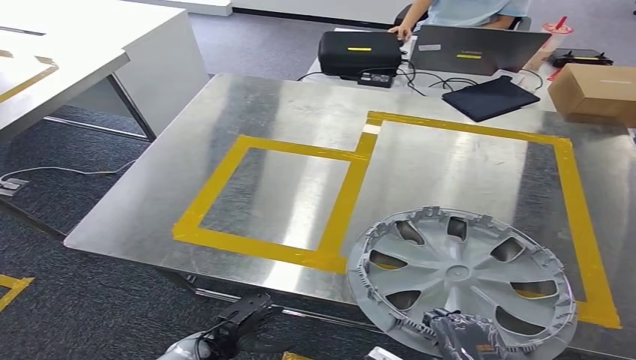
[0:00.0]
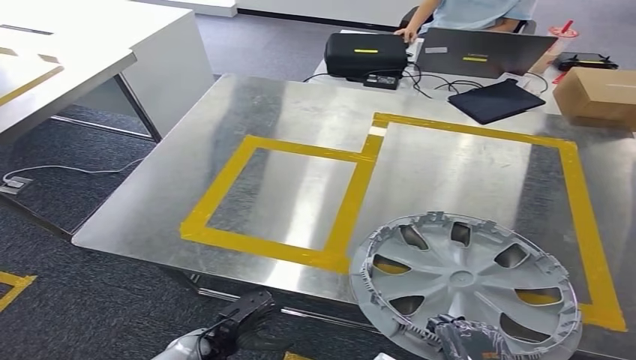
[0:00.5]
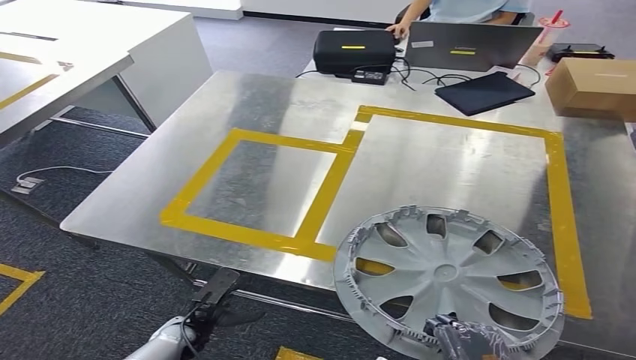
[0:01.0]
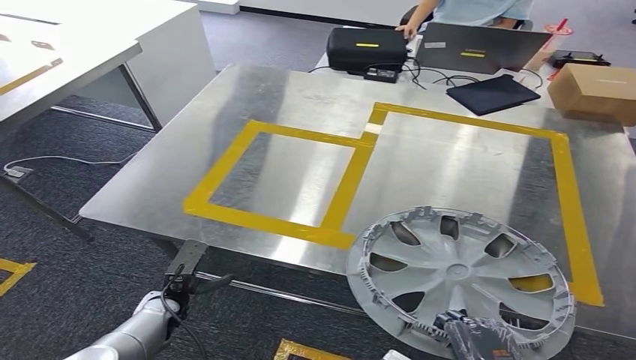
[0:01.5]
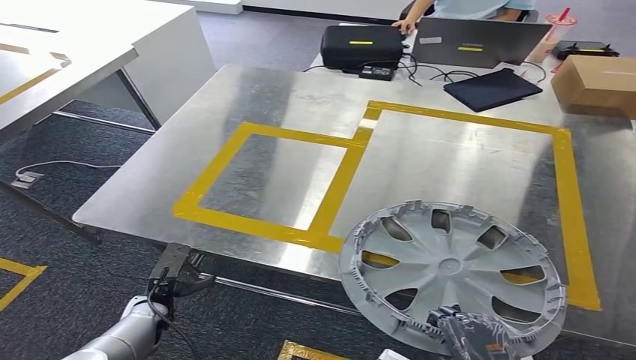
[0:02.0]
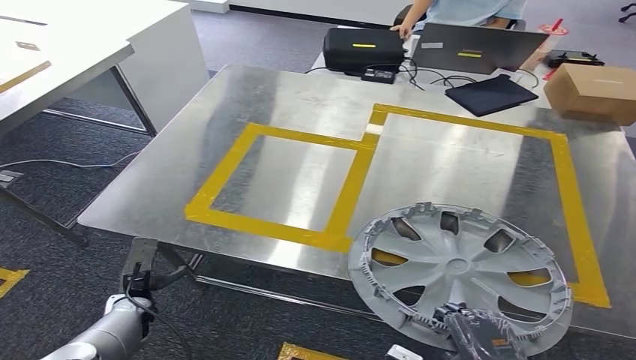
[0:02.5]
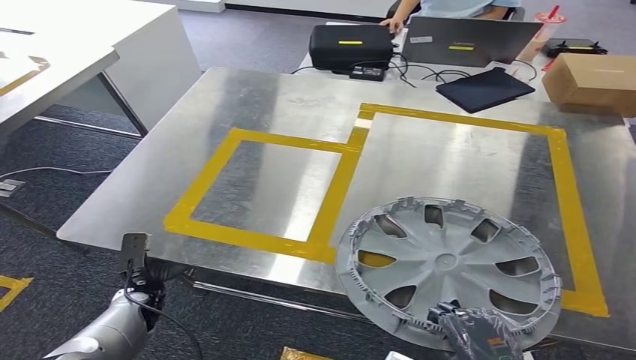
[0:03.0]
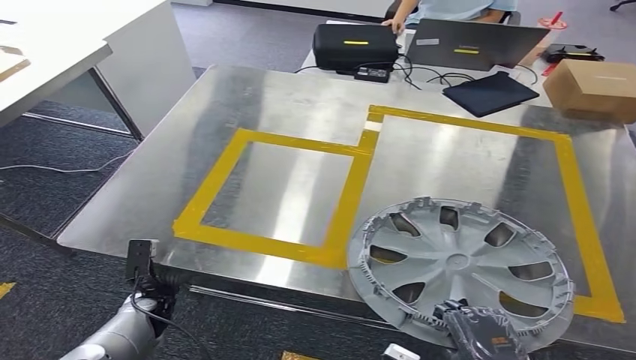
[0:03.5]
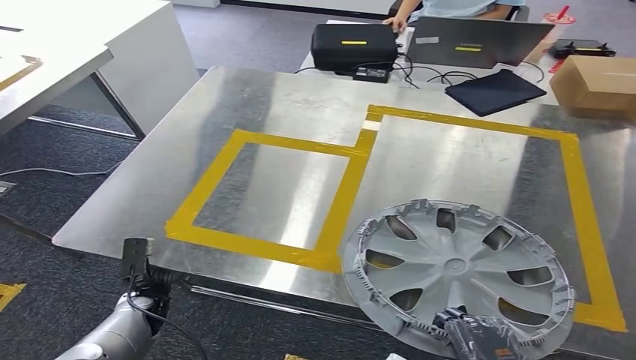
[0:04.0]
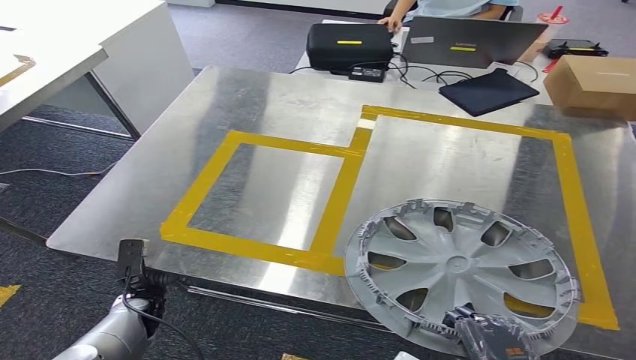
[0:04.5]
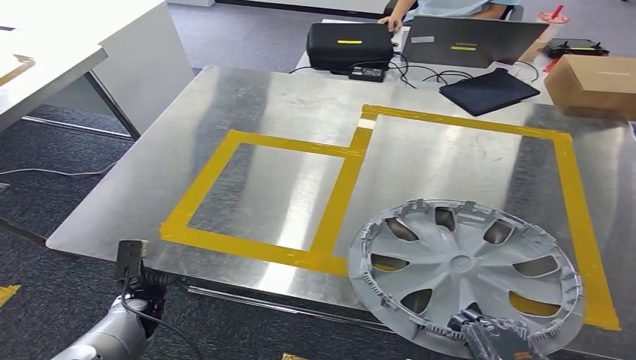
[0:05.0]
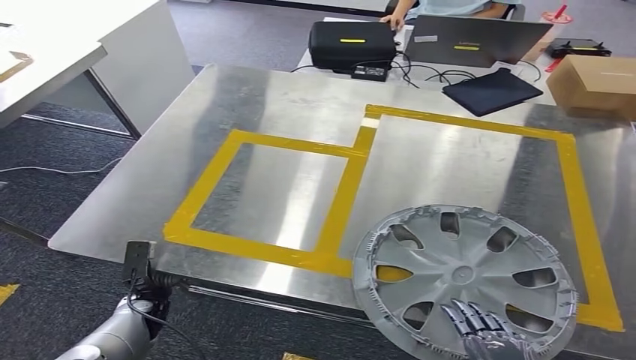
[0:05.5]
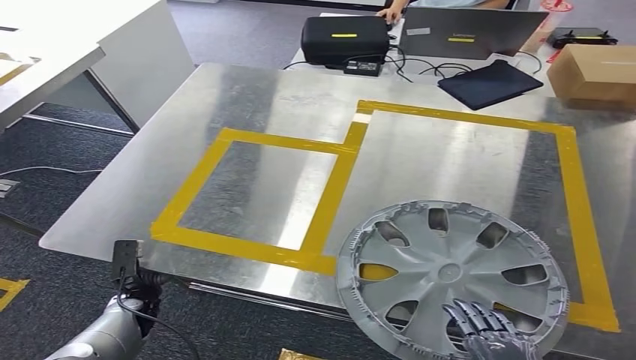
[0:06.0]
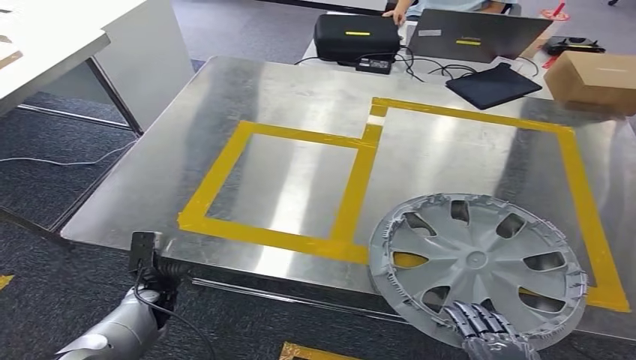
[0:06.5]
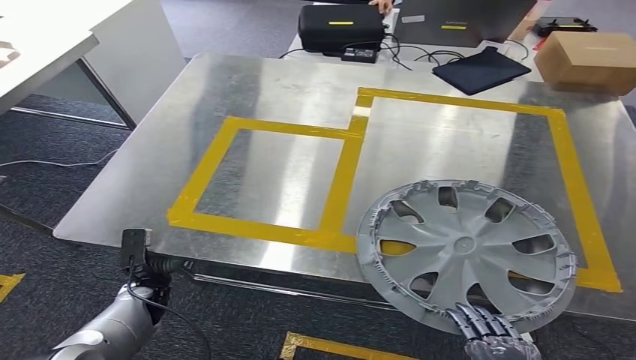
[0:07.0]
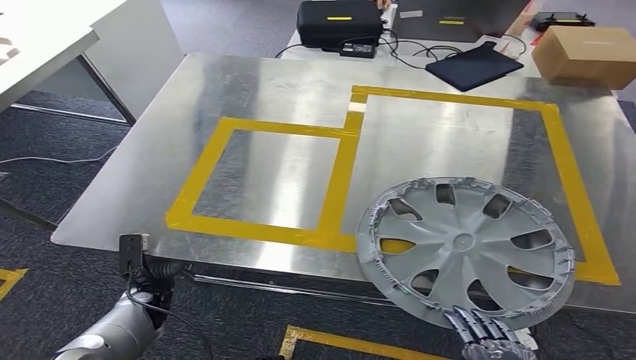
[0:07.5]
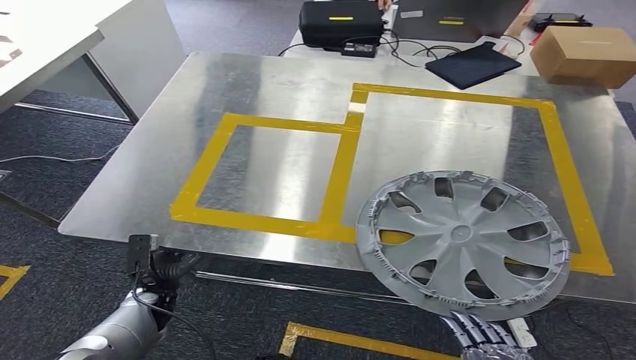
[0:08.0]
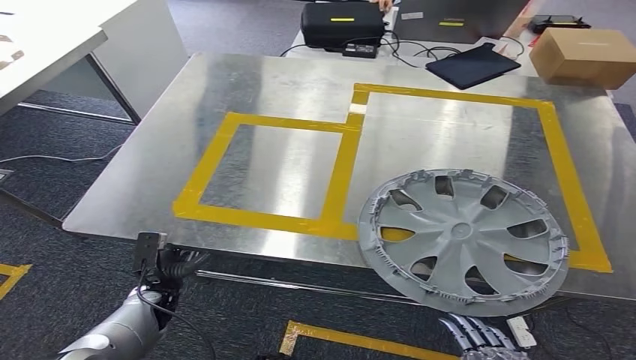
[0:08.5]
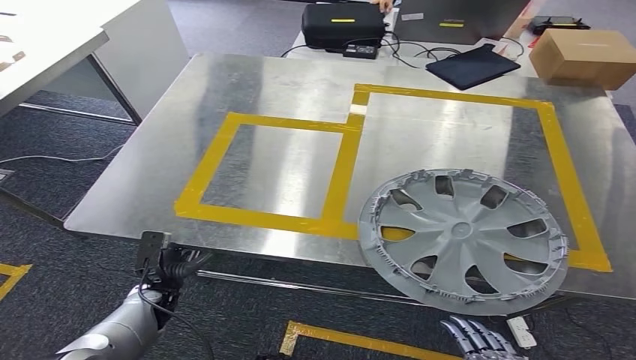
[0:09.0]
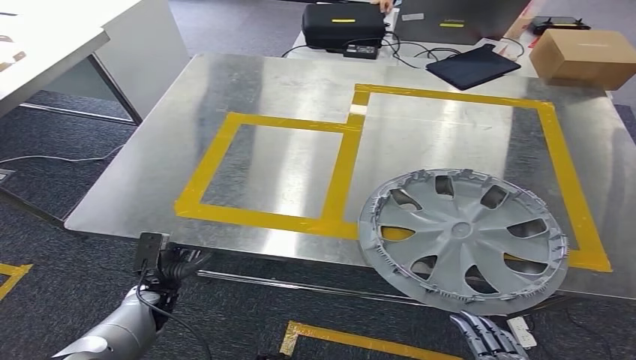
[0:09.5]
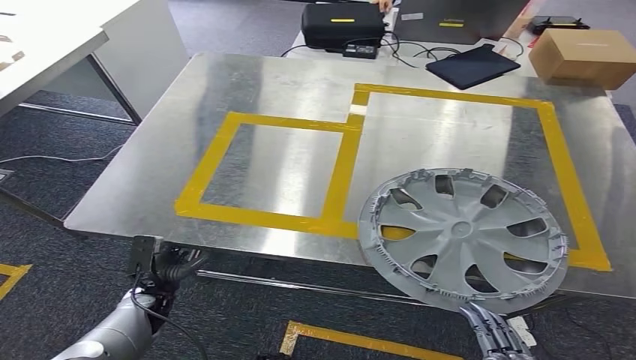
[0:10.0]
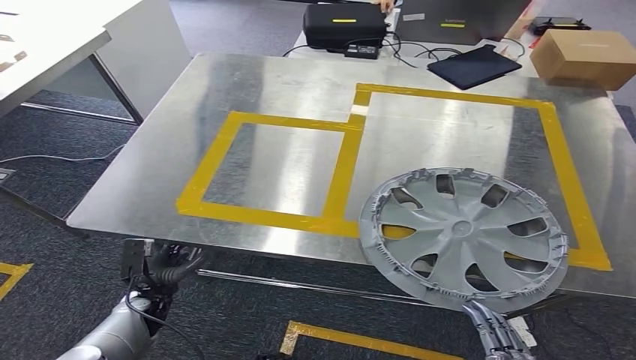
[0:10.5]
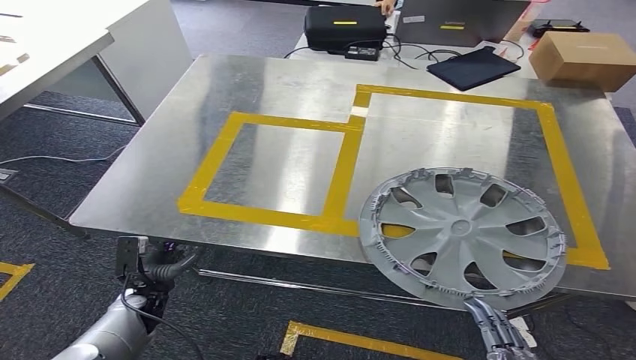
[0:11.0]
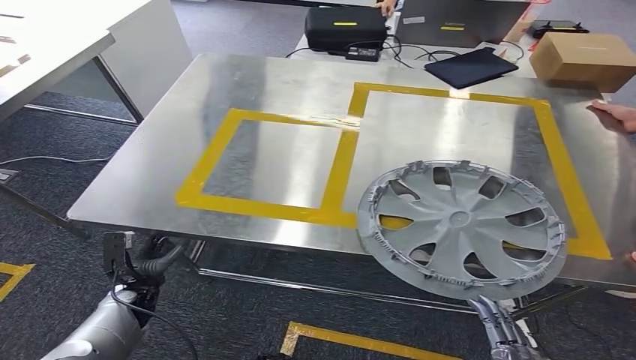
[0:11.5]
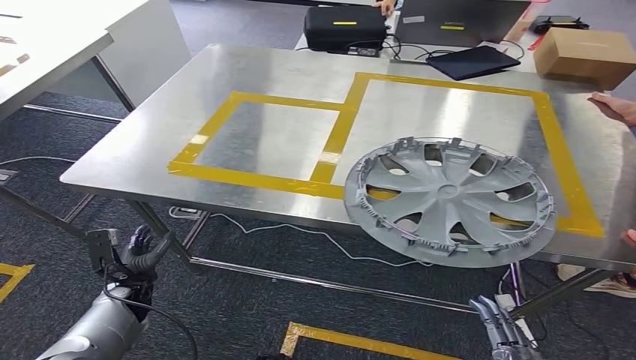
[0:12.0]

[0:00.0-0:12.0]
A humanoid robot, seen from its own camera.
Step, 0:00.0 to 0:06.5: Insert the small component into the corresponding slot on the workbench.

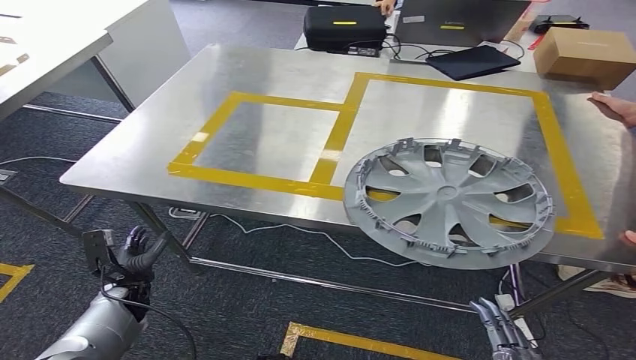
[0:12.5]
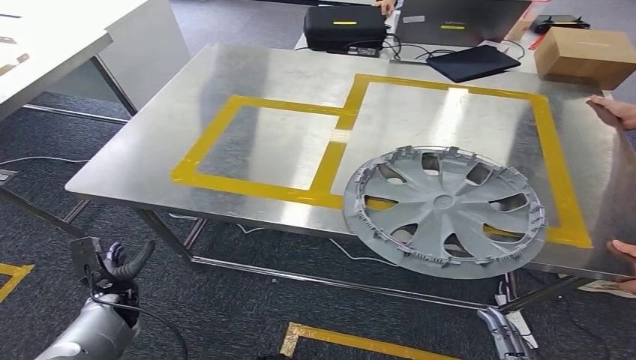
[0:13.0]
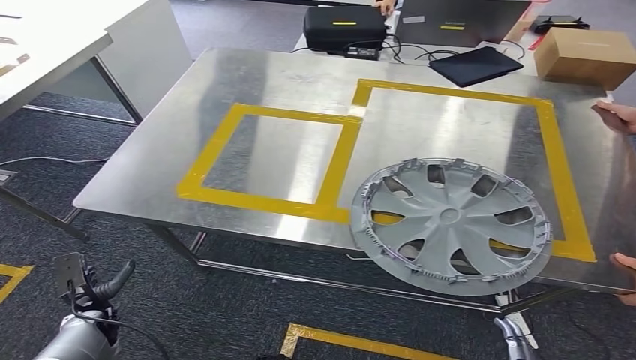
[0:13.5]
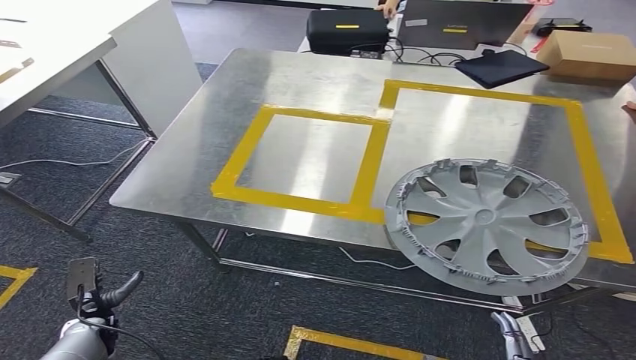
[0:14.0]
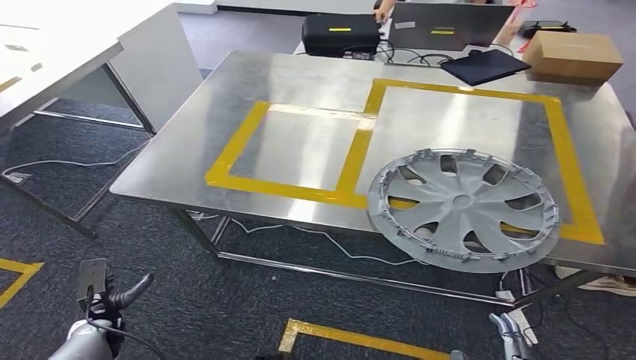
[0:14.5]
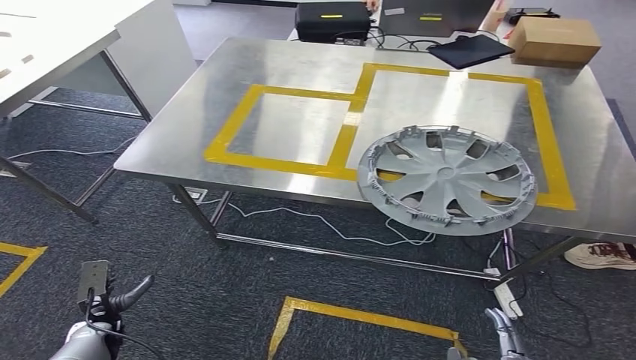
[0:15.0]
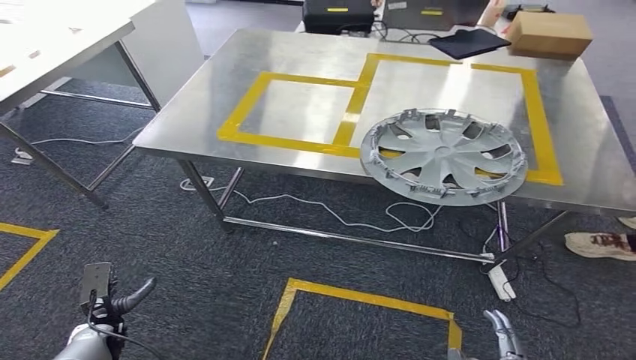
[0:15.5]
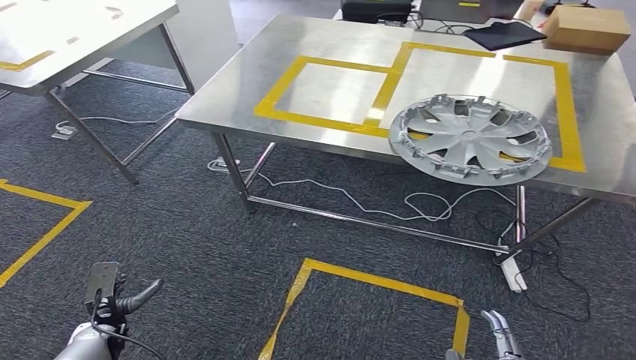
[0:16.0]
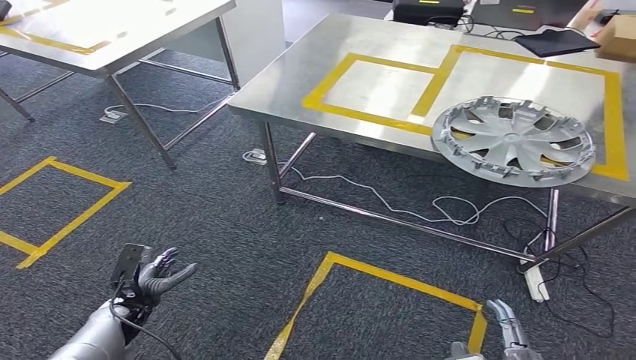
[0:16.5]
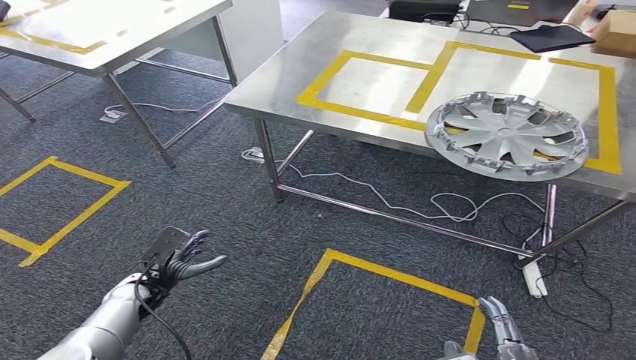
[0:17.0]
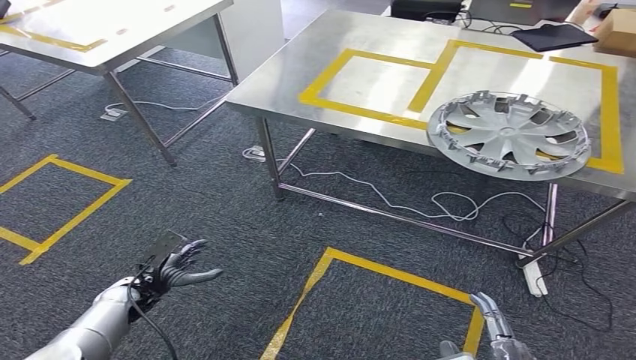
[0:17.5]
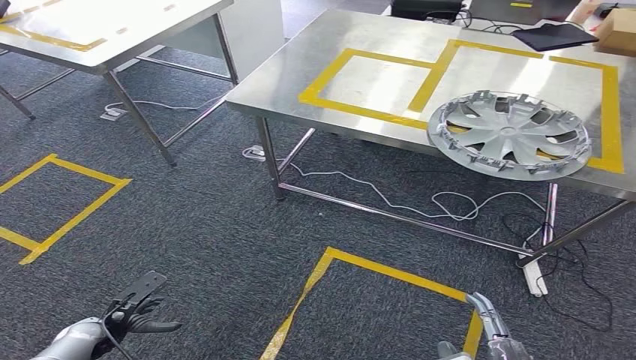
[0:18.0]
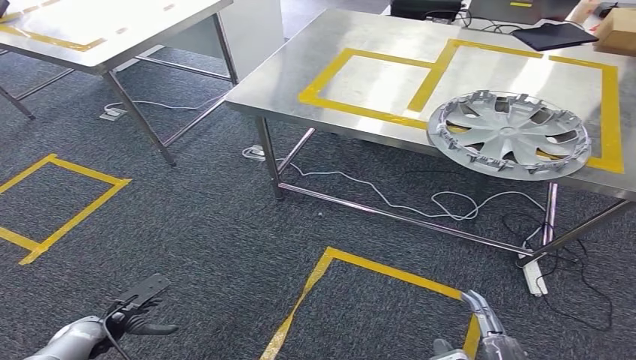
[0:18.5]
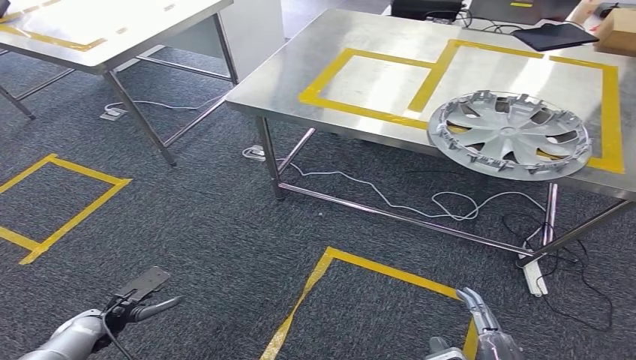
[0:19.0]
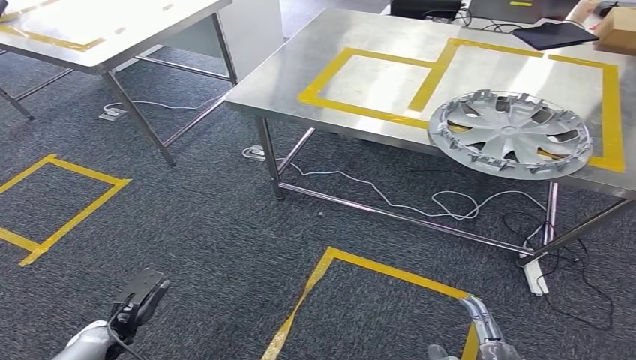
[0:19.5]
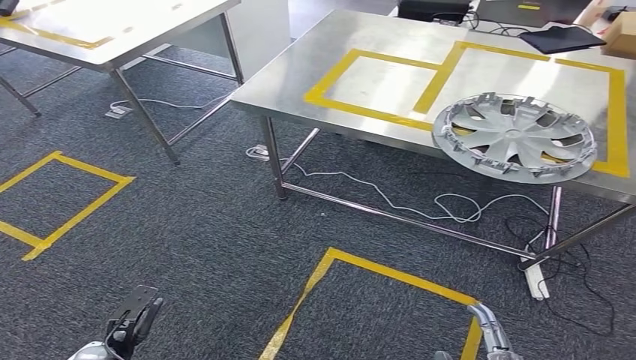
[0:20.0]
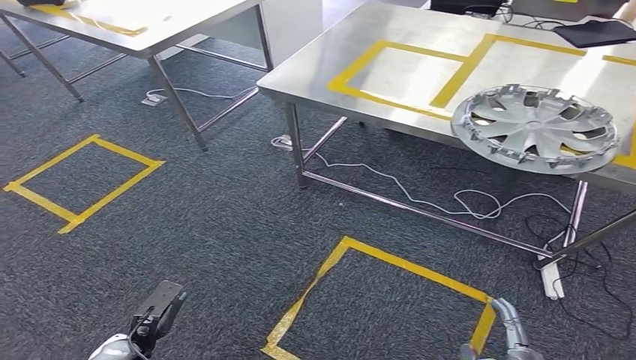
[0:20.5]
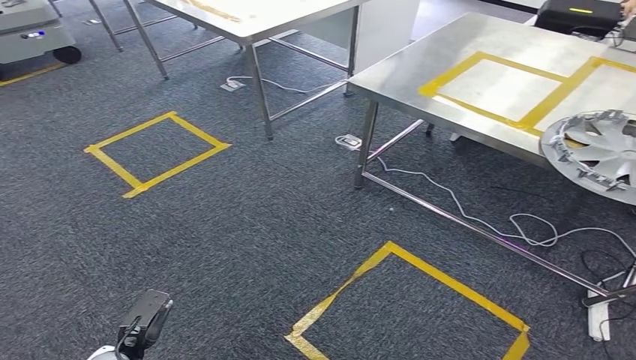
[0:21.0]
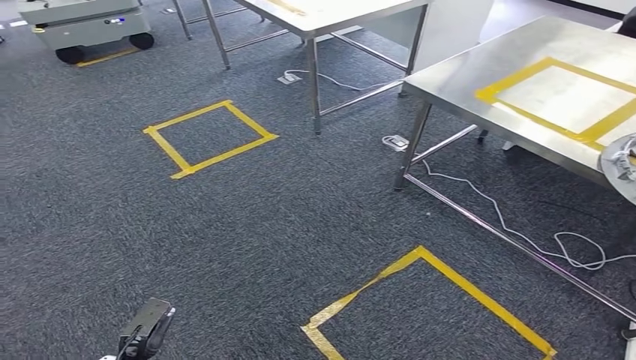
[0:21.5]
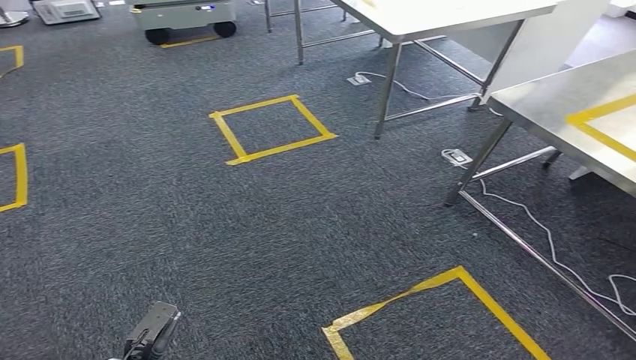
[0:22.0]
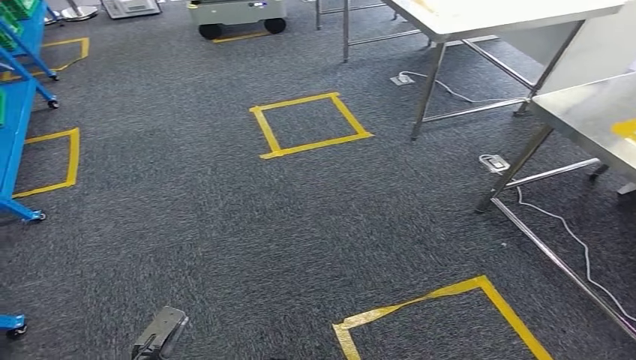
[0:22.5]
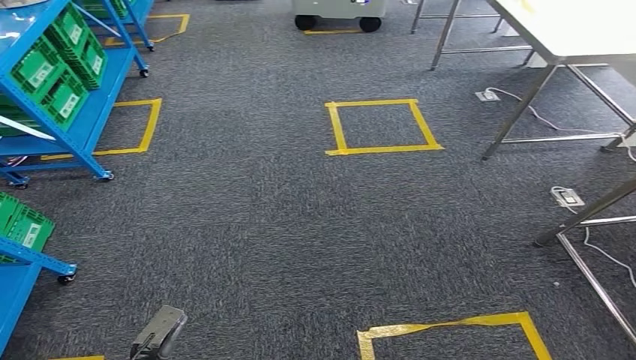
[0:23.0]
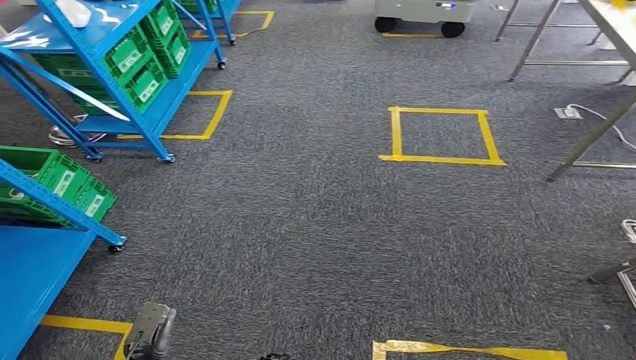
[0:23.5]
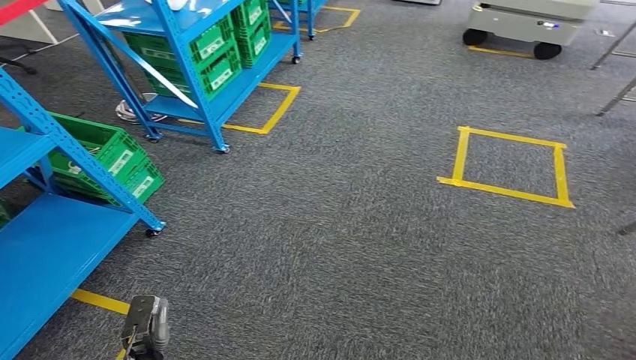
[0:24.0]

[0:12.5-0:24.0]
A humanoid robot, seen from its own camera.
0:18.5 to 0:20.0: The left hand changes place by some 5 cm.
